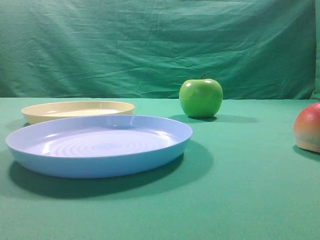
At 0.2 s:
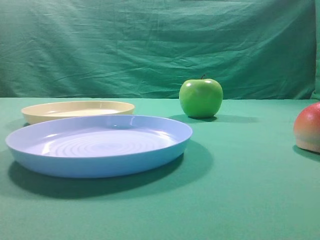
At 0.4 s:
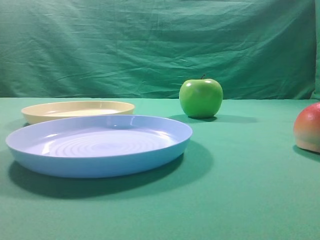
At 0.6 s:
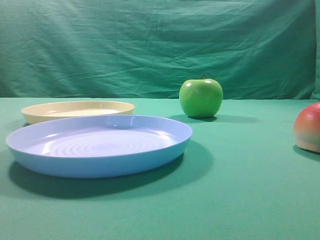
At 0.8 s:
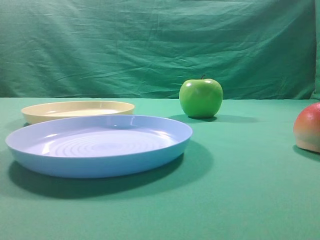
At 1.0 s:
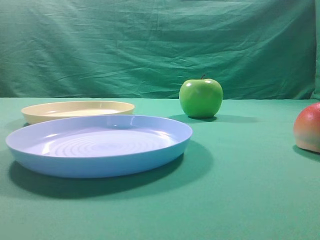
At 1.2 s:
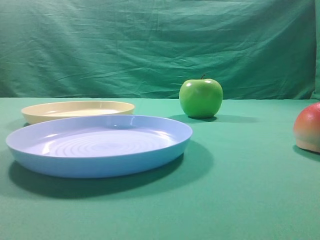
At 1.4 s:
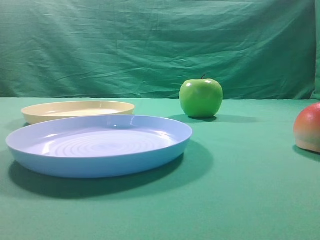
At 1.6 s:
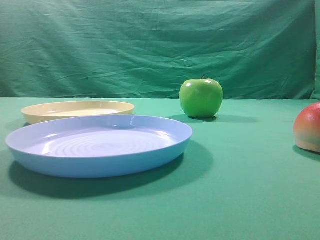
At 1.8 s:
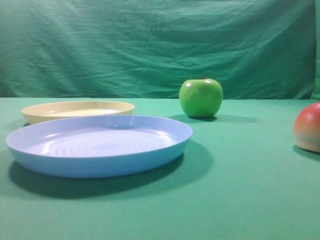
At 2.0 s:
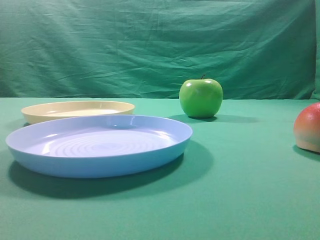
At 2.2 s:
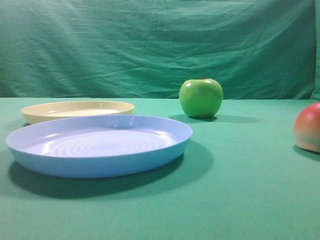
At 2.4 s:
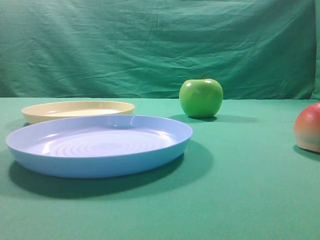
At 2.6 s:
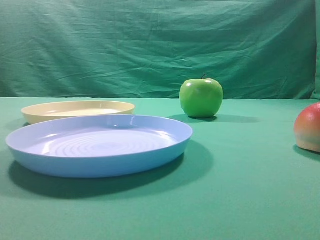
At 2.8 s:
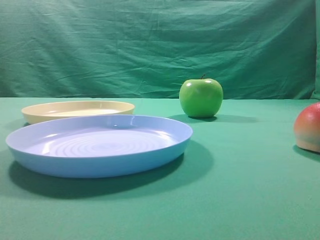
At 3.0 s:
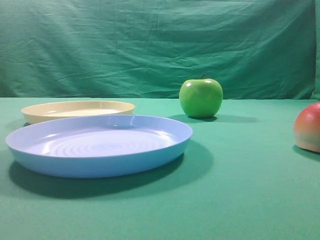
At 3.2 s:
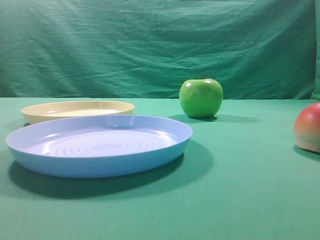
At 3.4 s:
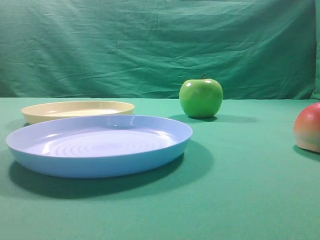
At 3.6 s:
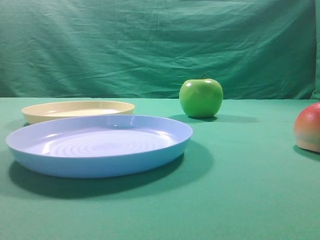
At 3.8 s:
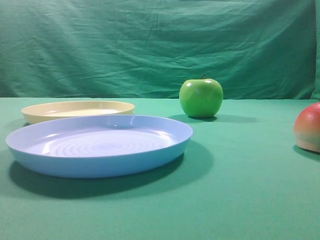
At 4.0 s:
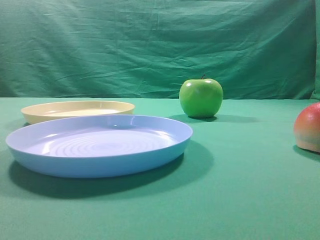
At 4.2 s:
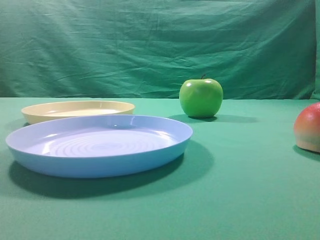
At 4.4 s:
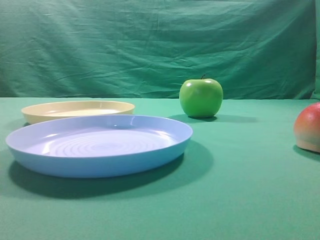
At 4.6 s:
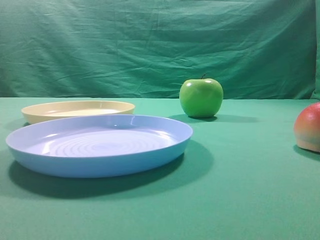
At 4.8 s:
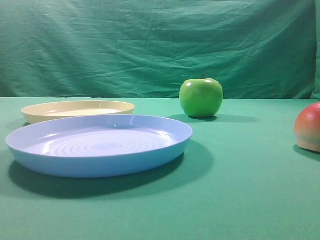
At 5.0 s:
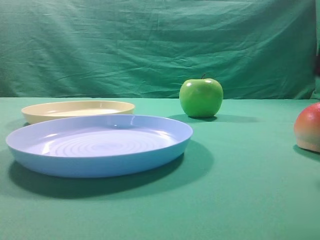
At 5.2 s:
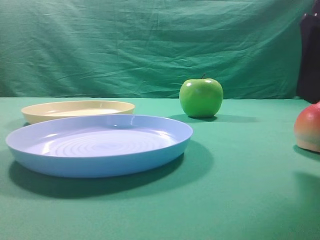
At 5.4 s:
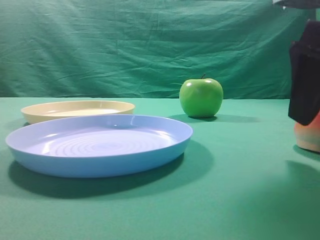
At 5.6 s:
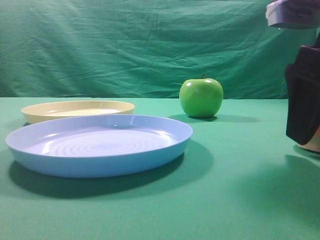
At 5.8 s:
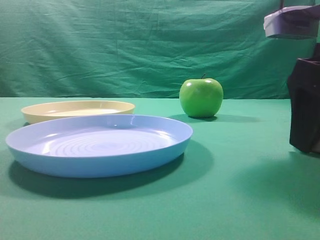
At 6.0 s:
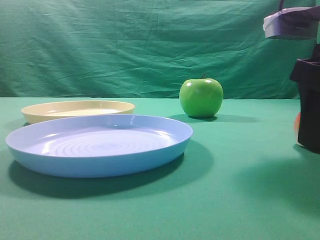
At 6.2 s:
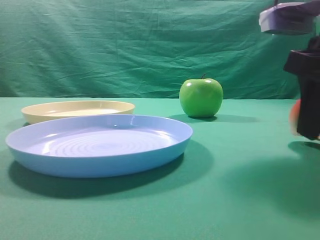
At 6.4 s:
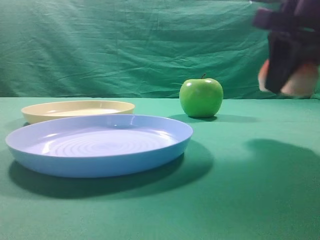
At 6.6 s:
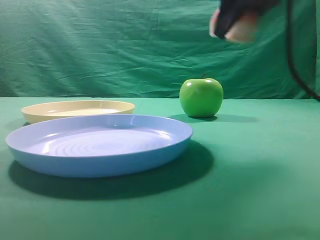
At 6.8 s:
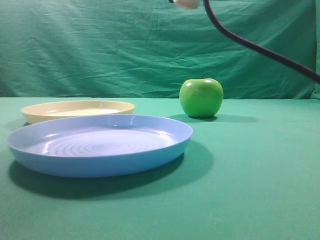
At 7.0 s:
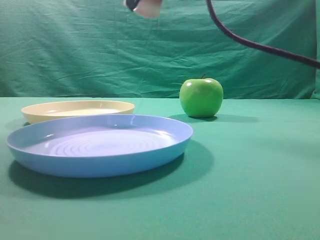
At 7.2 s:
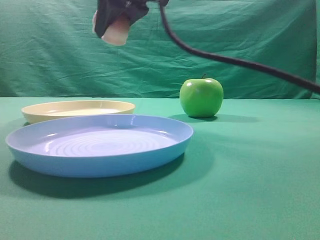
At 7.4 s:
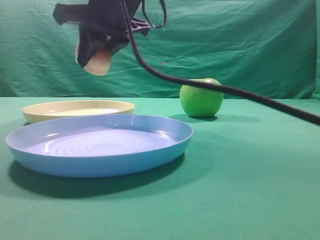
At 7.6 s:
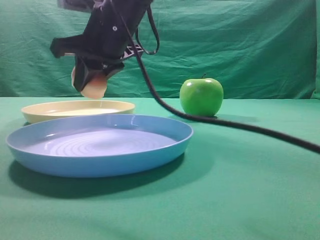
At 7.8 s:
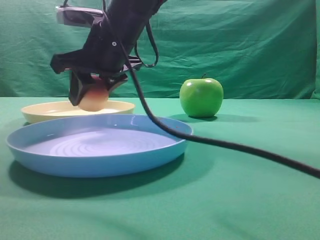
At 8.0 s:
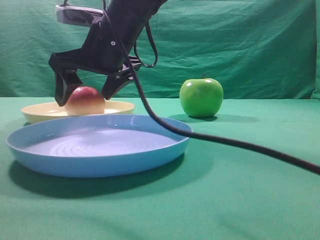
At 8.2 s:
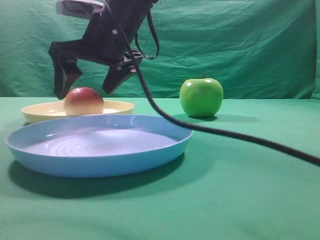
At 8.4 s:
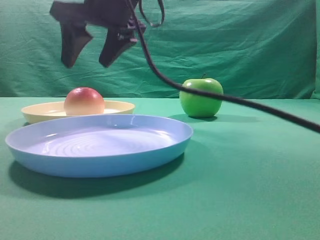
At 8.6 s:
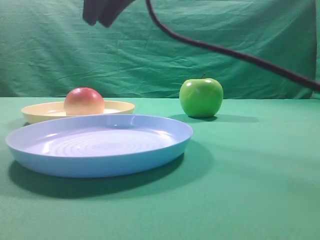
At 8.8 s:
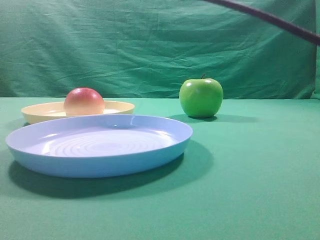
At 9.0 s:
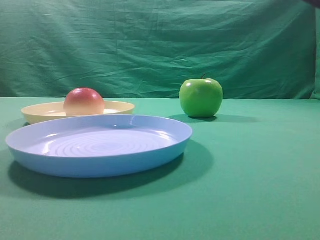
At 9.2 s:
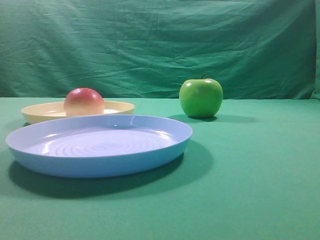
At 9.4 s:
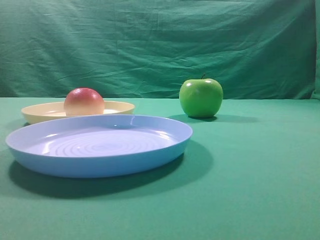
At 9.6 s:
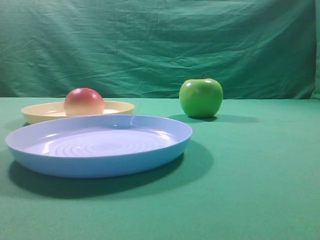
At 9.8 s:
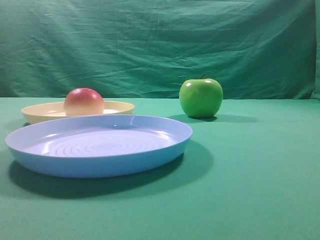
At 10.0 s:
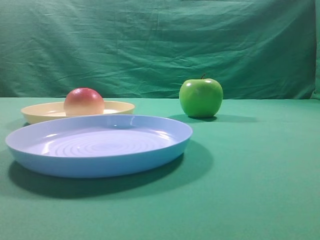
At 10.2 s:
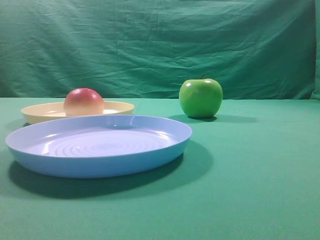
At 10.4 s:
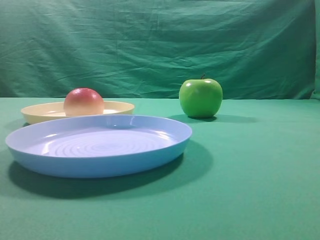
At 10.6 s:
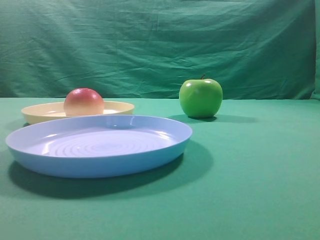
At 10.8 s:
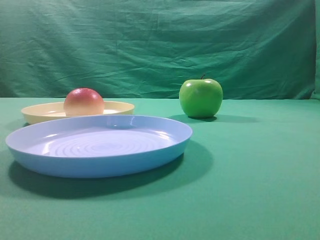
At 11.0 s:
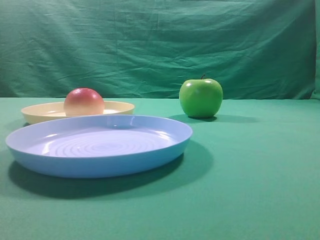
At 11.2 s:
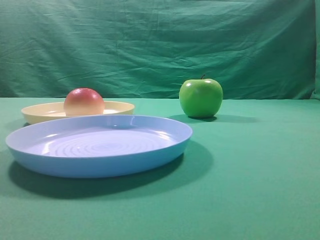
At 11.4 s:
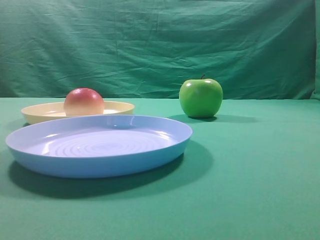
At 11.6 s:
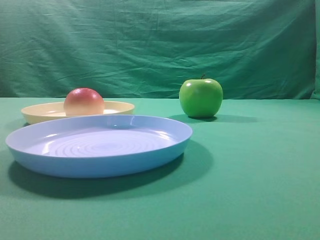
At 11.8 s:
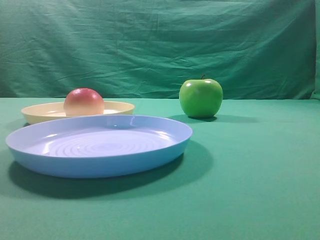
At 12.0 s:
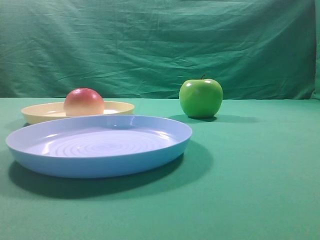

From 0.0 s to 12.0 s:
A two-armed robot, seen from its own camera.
Step, from 6.4 s to 8.2 s: Place the picked object on the yellow plate.

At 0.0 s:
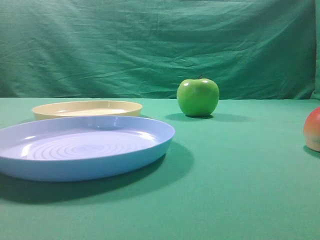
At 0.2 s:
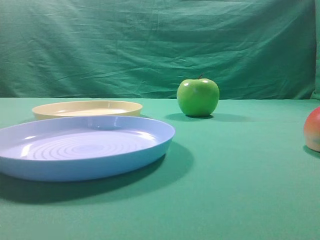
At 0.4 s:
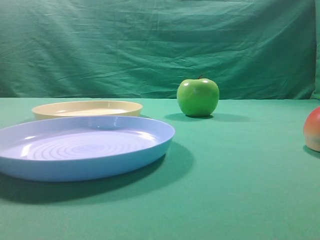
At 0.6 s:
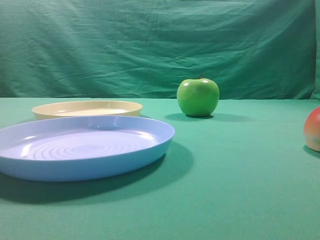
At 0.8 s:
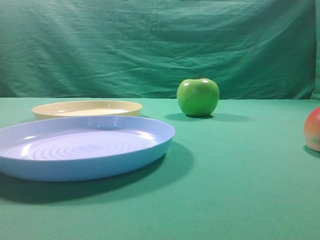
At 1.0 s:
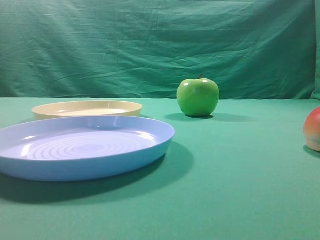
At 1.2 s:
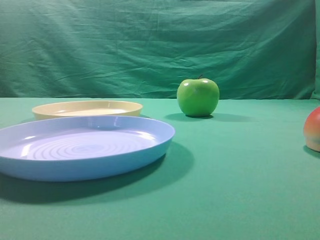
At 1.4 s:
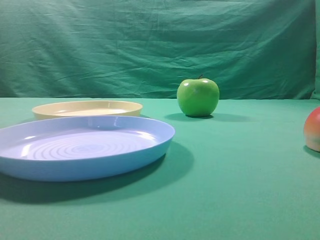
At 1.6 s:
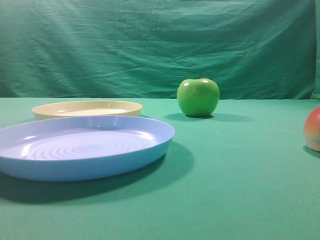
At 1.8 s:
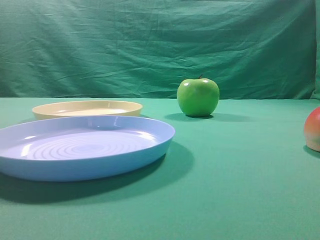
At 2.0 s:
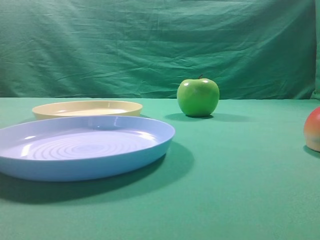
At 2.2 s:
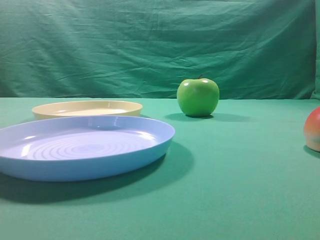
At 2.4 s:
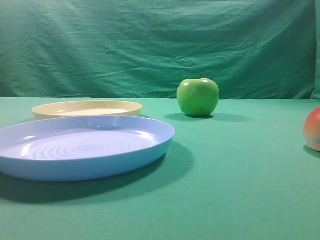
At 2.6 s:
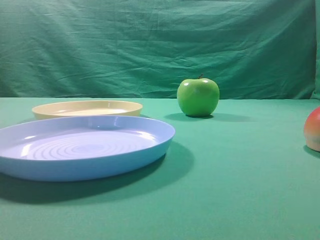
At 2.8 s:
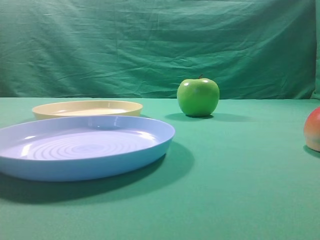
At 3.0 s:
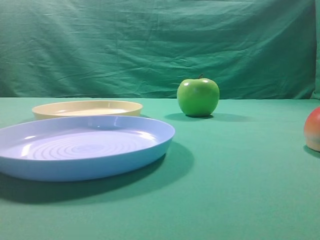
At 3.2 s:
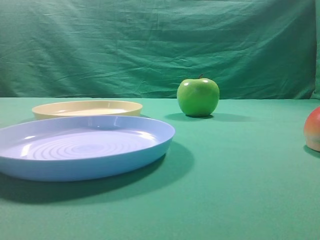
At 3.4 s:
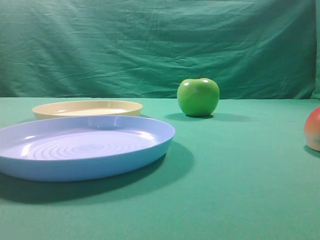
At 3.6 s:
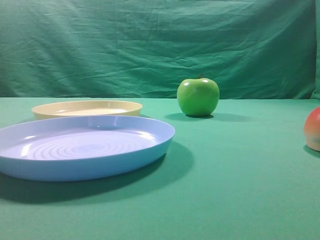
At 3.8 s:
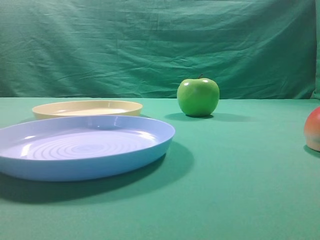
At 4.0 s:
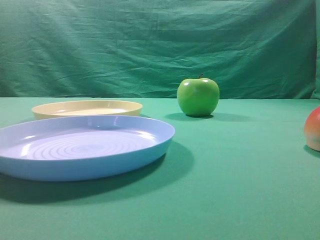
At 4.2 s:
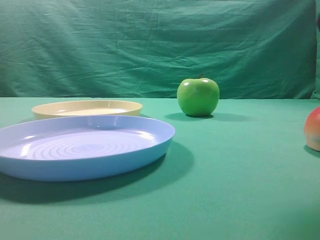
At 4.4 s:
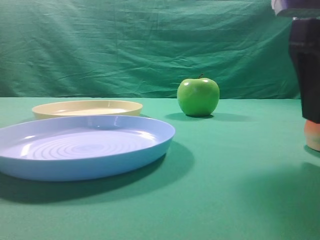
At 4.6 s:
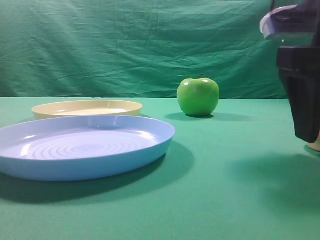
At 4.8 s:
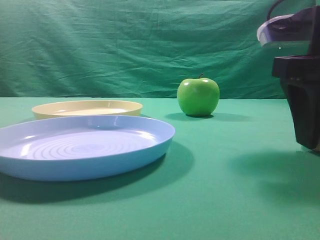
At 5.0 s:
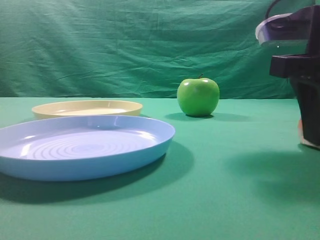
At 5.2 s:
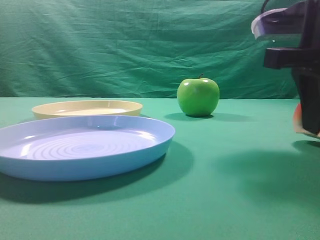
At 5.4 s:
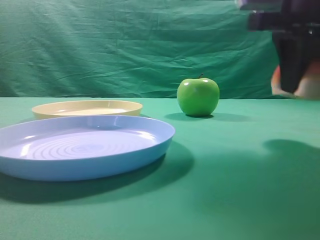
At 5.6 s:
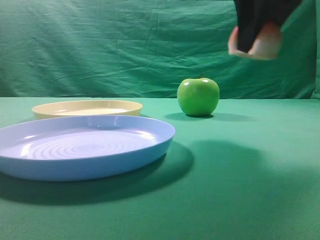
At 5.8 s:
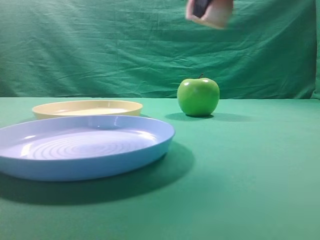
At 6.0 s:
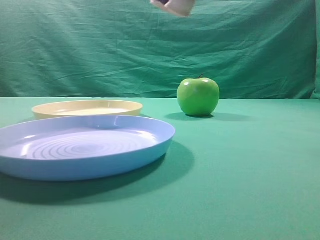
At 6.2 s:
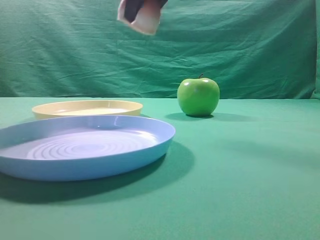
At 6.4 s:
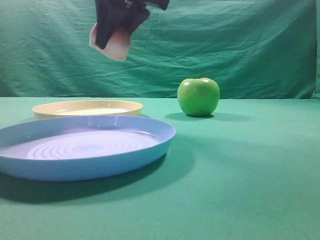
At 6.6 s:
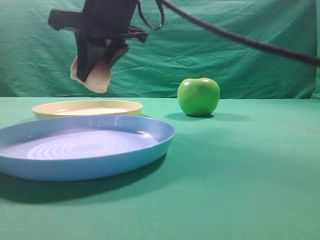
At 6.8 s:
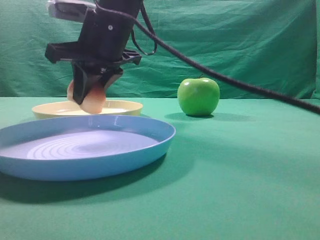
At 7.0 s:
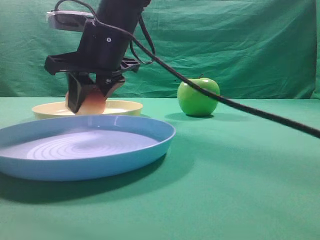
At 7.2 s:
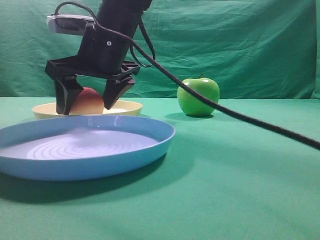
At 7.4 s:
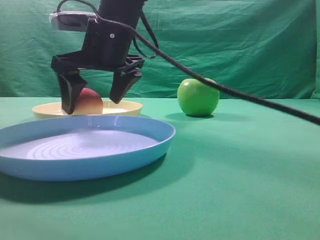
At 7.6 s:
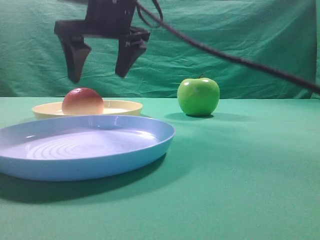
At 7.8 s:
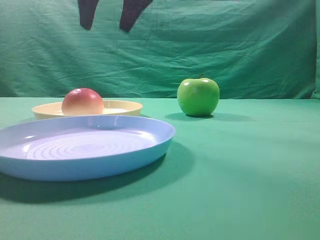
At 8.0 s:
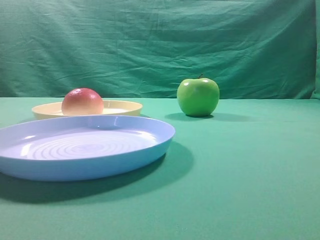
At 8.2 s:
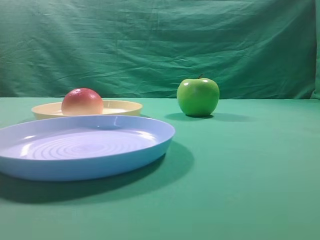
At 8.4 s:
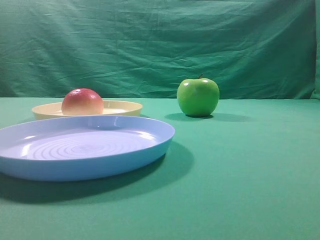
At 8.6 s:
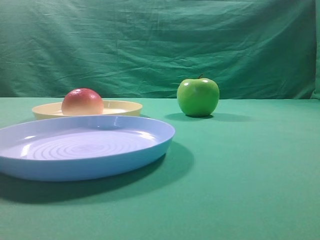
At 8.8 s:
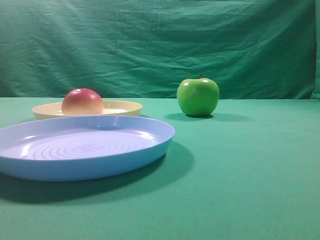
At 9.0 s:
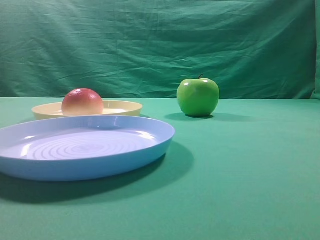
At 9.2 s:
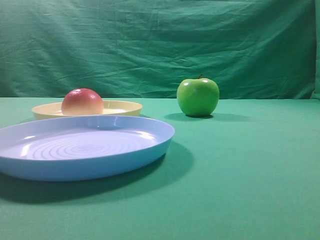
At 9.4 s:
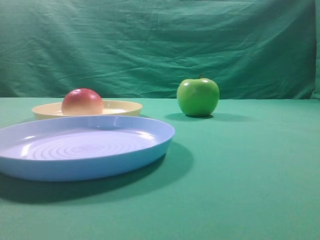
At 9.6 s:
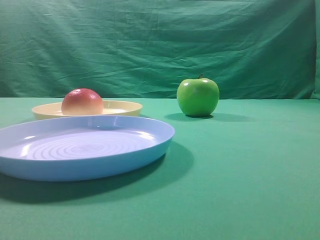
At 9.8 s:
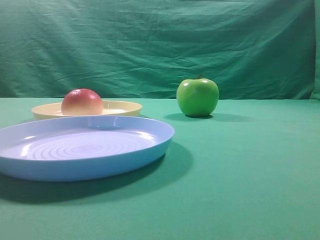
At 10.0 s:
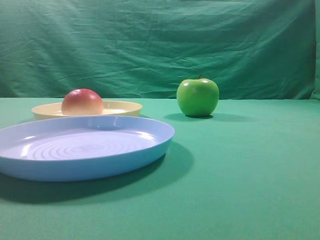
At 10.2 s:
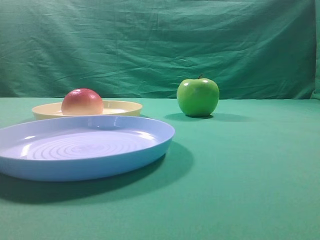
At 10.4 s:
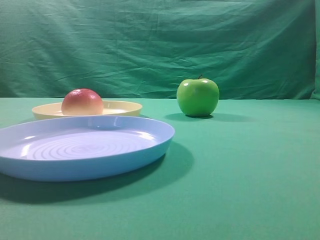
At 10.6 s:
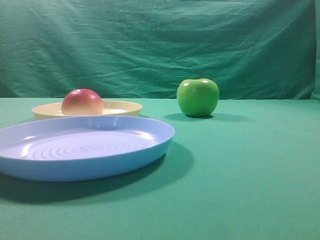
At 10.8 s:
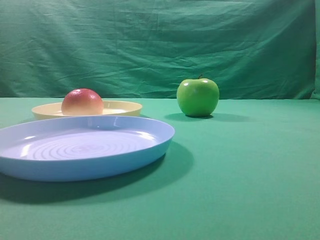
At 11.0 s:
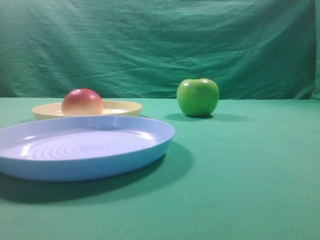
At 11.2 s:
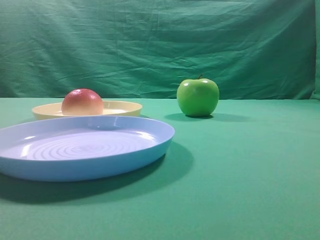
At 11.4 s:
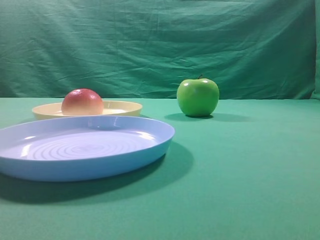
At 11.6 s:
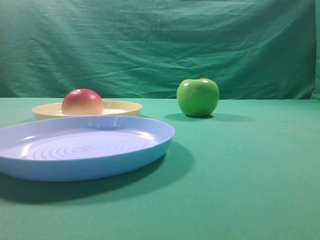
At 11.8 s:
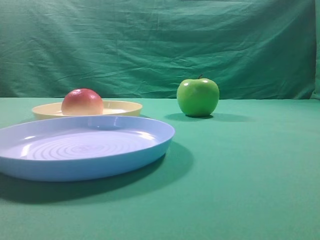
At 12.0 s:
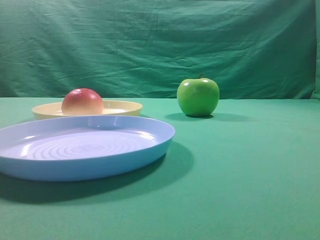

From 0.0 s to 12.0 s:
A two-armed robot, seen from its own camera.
Step, from 5.6 s to 7.6 s: Place the picked object on the yellow plate.
